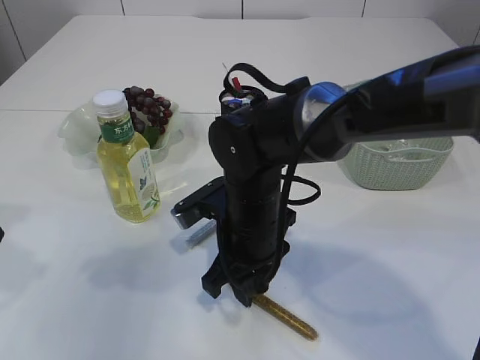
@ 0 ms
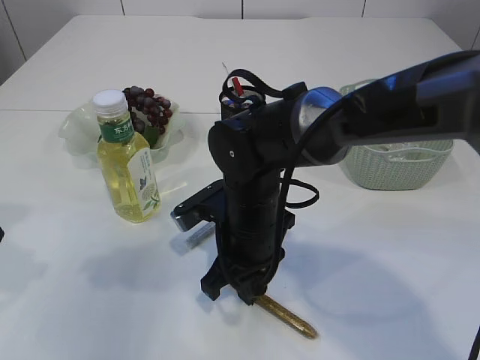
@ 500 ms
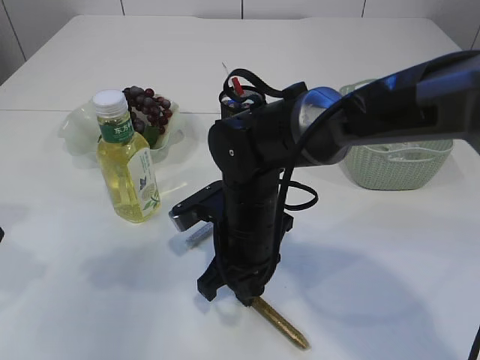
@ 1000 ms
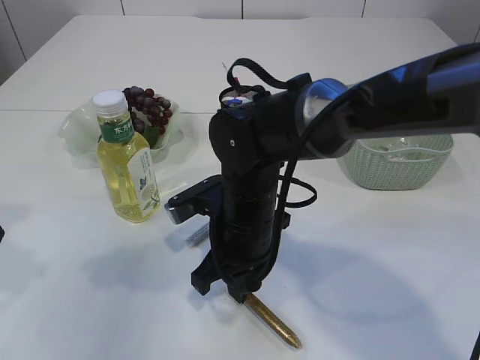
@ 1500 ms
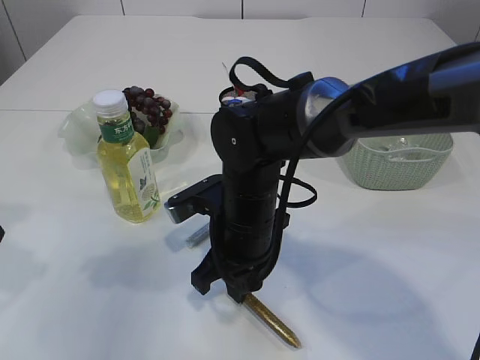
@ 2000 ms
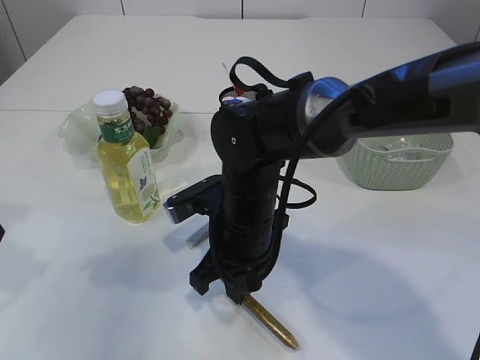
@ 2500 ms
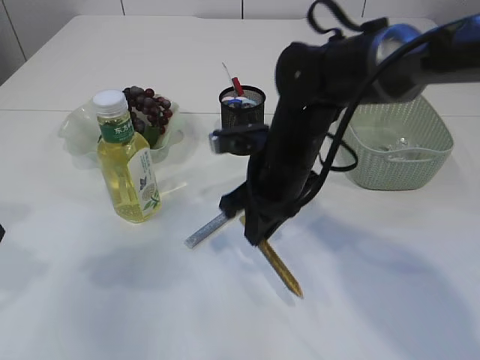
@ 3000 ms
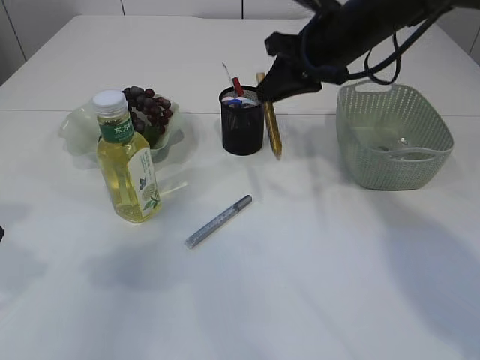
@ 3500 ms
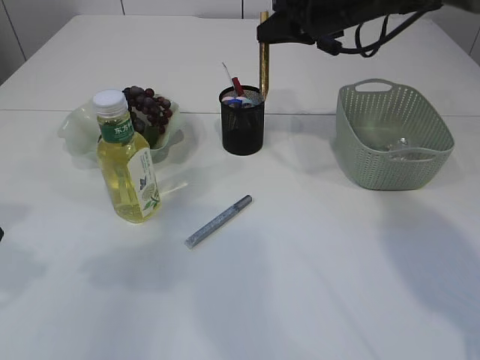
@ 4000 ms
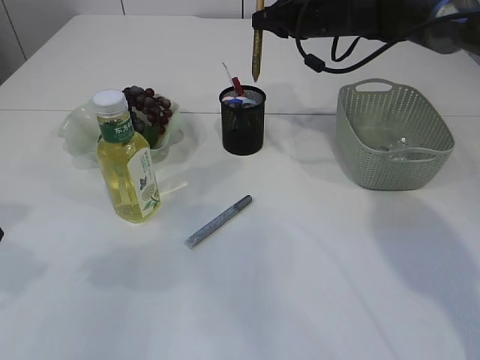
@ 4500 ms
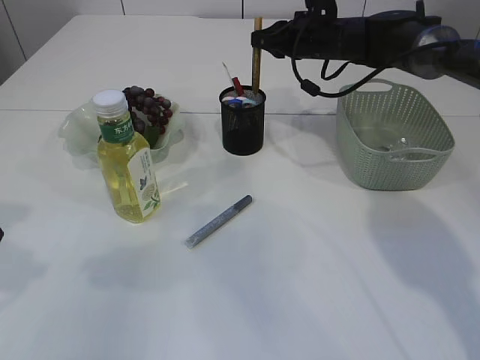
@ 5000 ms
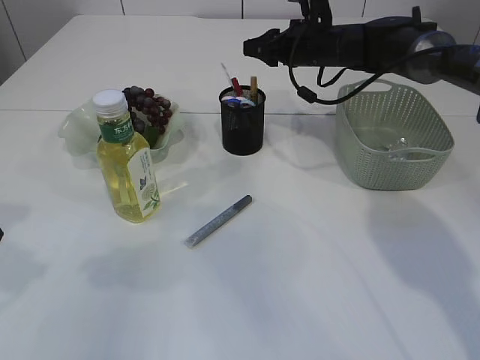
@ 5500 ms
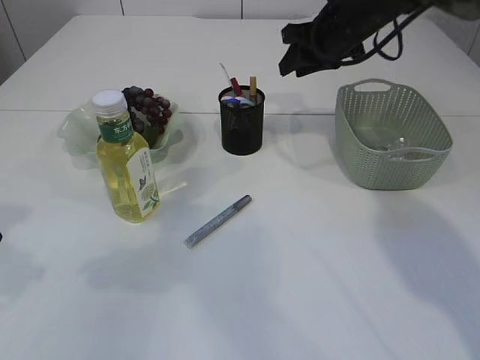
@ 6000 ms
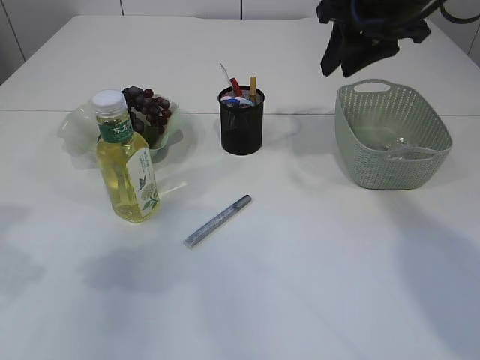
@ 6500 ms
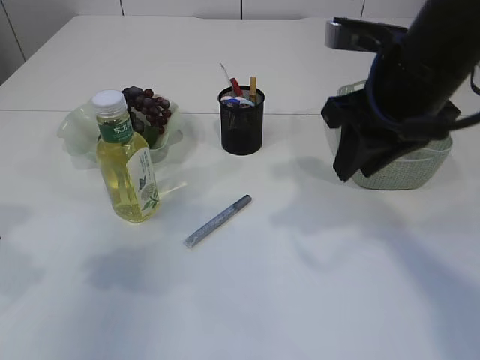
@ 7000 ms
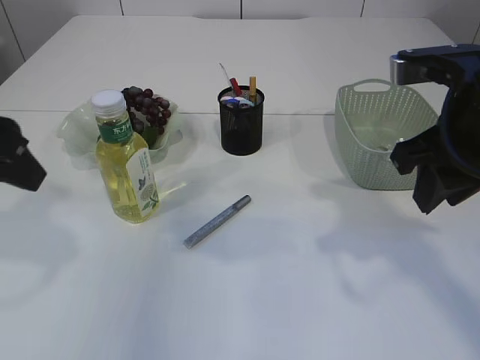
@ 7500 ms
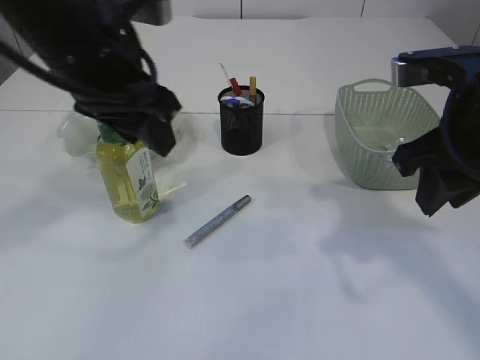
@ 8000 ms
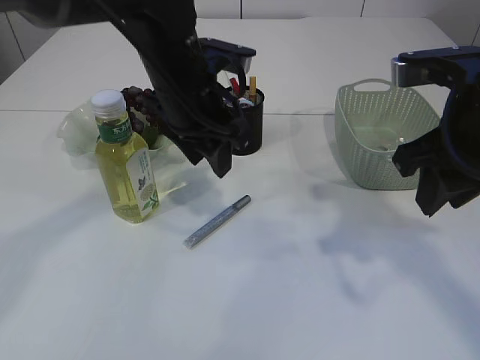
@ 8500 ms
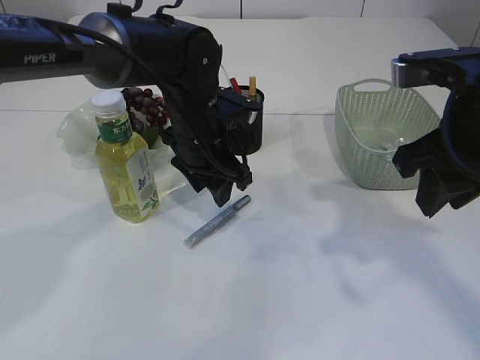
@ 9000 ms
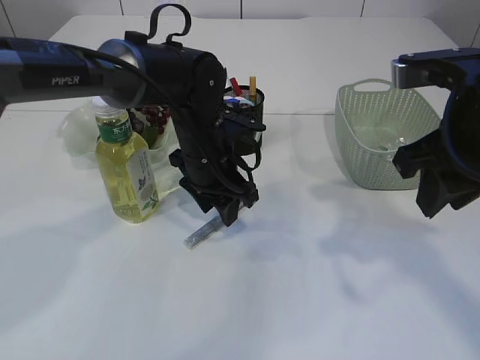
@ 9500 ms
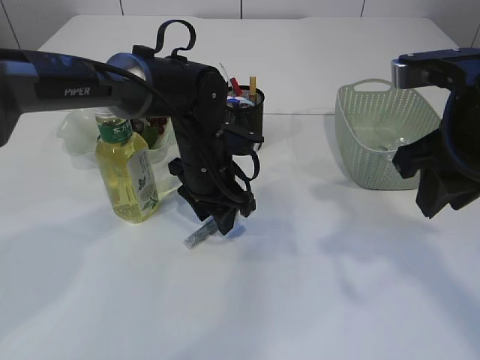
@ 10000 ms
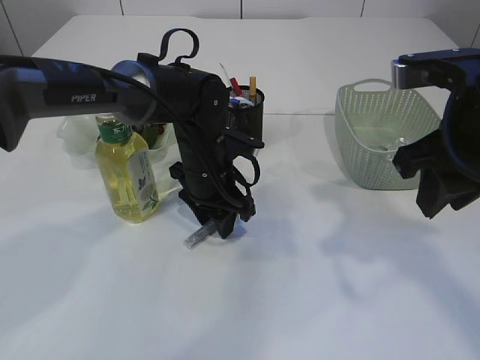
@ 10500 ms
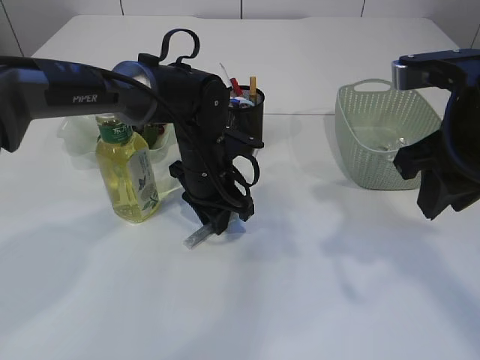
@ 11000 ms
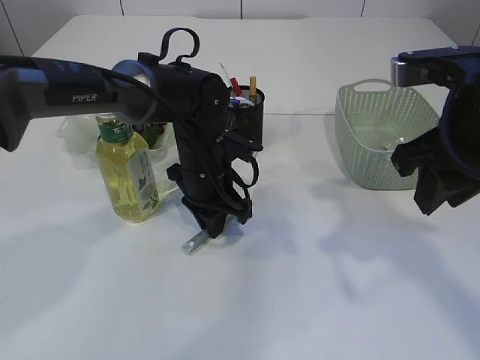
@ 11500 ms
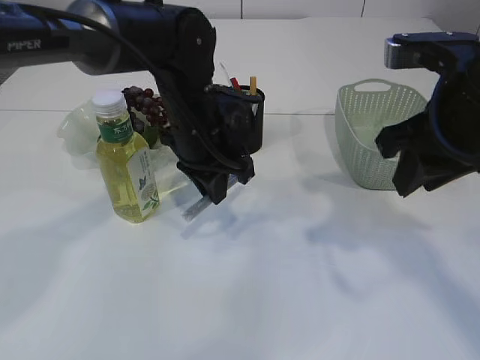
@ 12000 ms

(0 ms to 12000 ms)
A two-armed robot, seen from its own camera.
Step, 0 ms - 2500 ms: pick up the yellow glue.
Step, 3000 ms - 5500 ms: place the yellow glue into the pen holder.
0 ms - 2000 ms: The right gripper closes up.
2000 ms - 4000 ms: The right gripper moves forward, upward and to the right, some 30 cm.
4000 ms - 6000 ms: The right gripper opens its fingers.
6000 ms - 8000 ms: The right gripper heads backward, covering some 25 cm, while the left gripper shifts about 15 cm to the right and forward.
8000 ms - 10000 ms: The left gripper heads downward, forward and to the right, covering roughly 20 cm.
10000 ms - 12000 ms: The left gripper is displaced upward by approximately 5 cm, and closes.

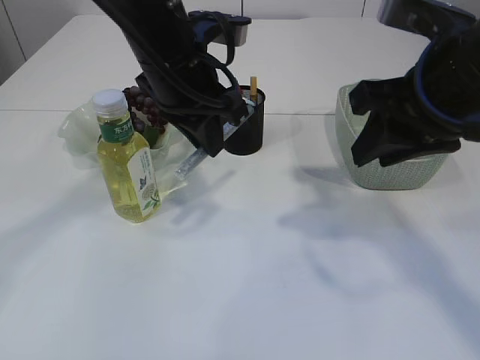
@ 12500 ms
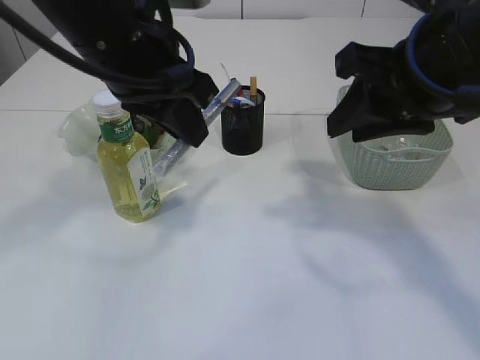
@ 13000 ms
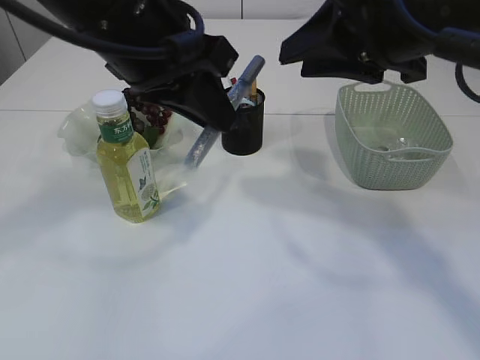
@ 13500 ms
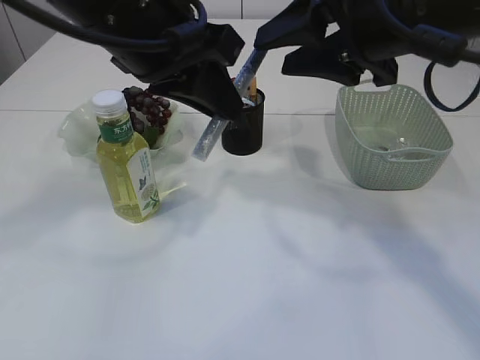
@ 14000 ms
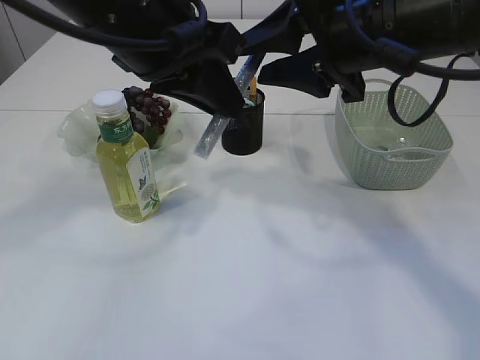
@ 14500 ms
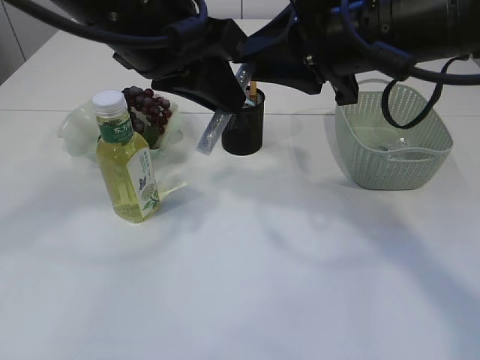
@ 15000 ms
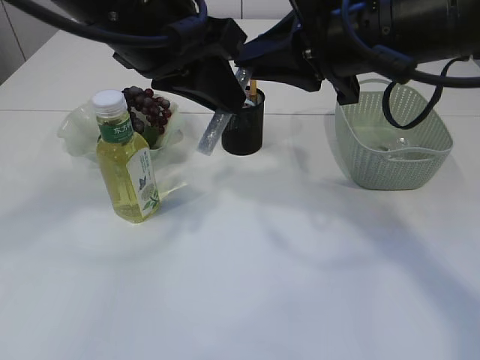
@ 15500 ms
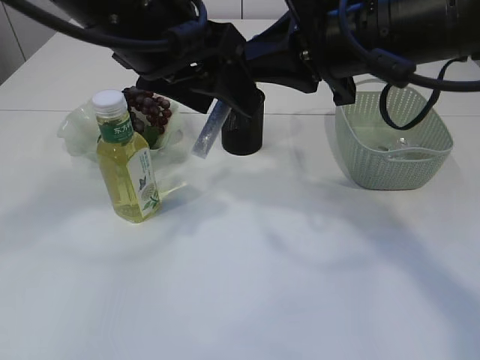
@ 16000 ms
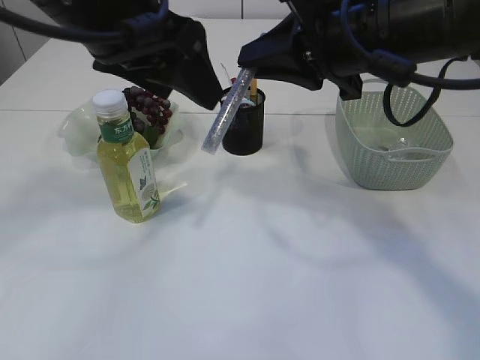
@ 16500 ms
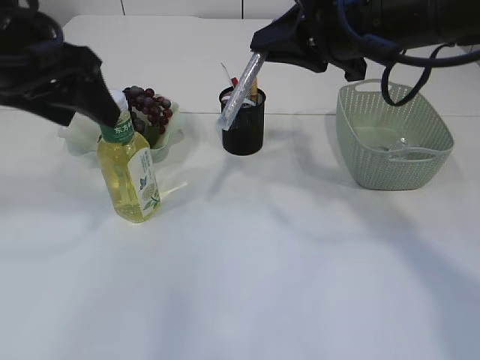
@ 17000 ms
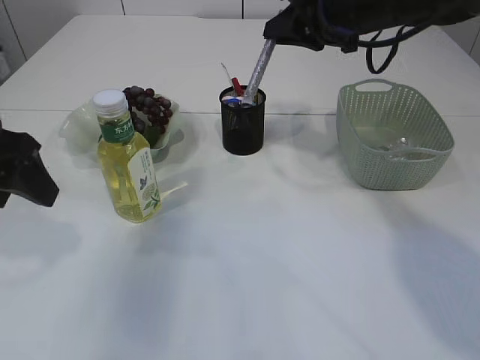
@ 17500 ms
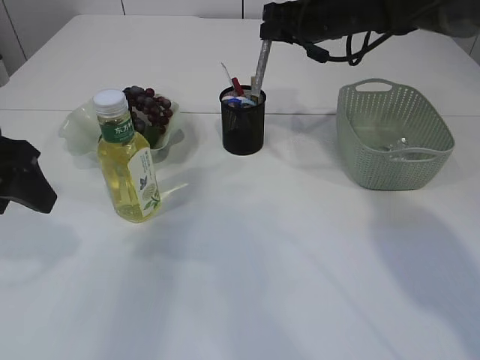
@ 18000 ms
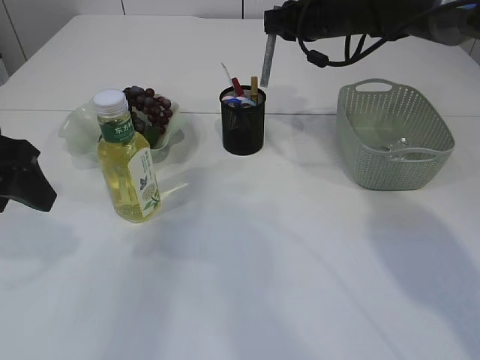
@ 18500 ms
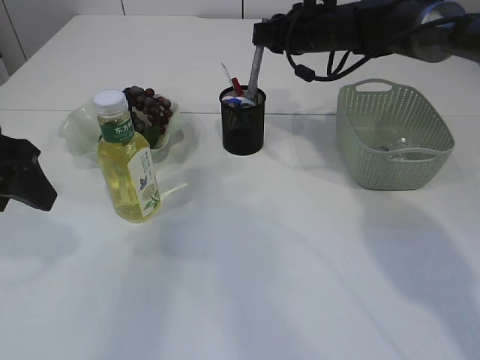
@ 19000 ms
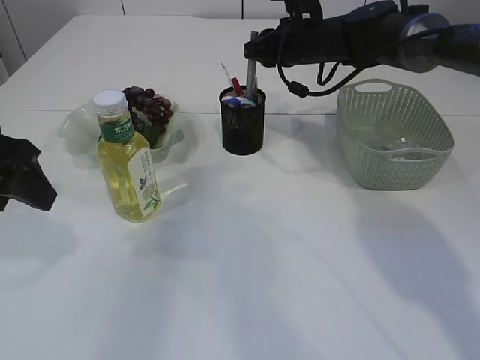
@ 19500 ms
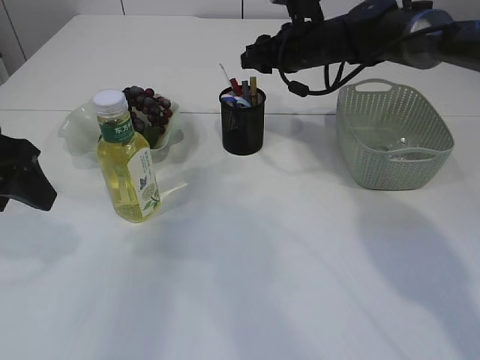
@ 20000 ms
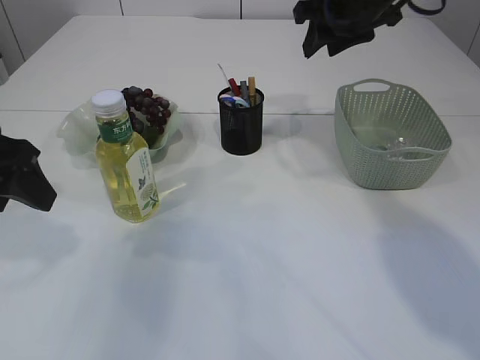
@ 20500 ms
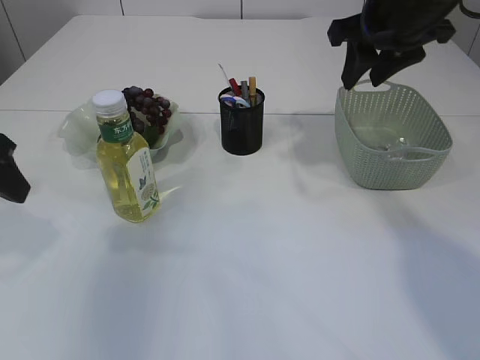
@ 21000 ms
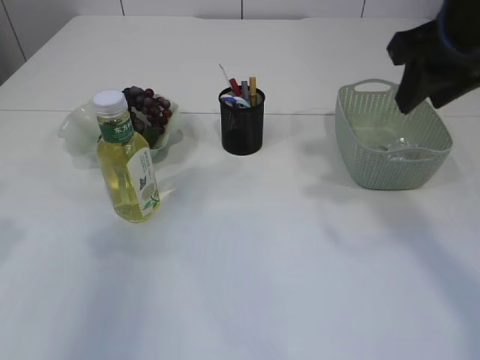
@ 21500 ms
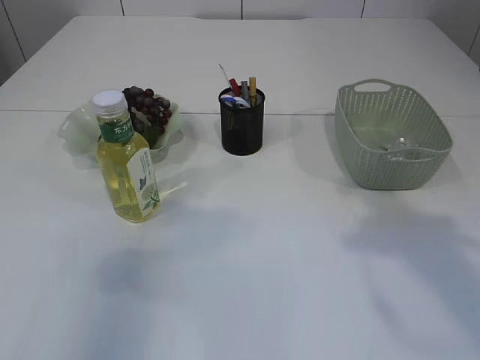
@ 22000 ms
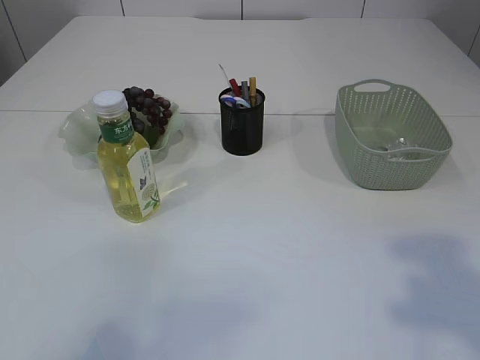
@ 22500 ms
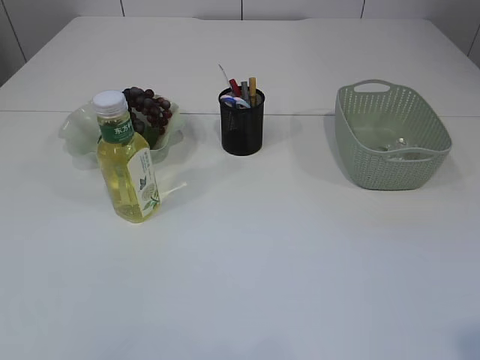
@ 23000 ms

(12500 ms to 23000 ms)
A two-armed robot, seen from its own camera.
Step, 12500 ms - 16500 ms: Hand over the silver glue.
Step, 17000 ms - 20500 ms: place the silver glue into the pen holder.
12500 ms - 14500 ms: The right gripper travels to the left by approximately 5 cm; the left gripper travels backward and upward by about 10 cm.
14500 ms - 16500 ms: The left gripper opens its fingers. Meanwhile the right gripper closes its fingers.
16500 ms - 19000 ms: The left gripper travels to the left and downward by approximately 15 cm. Meanwhile the right gripper shifts approximately 25 cm forward.
19000 ms - 21000 ms: The right gripper heads backward and upward, covering approximately 15 cm, and opens up.
21000 ms - 23000 ms: Both grippers move backward, some 35 cm.

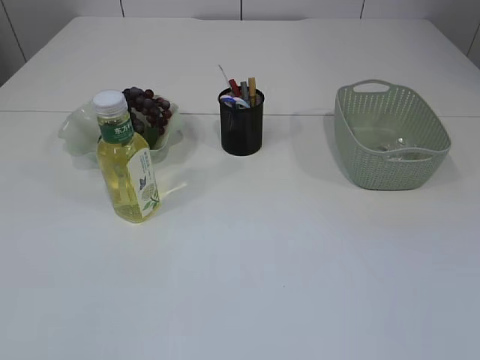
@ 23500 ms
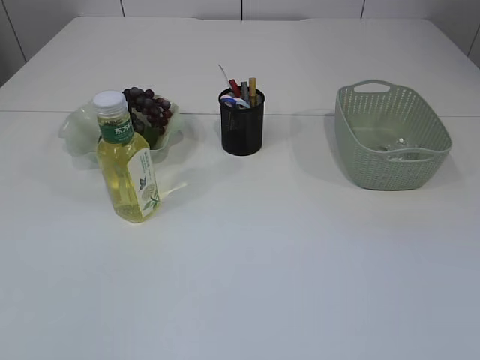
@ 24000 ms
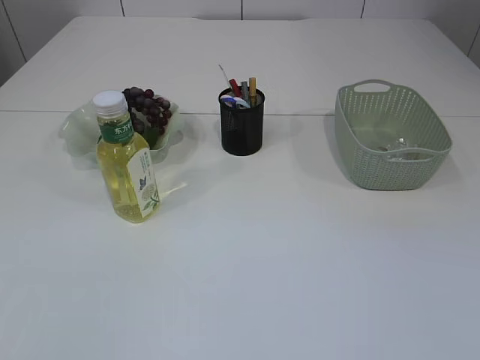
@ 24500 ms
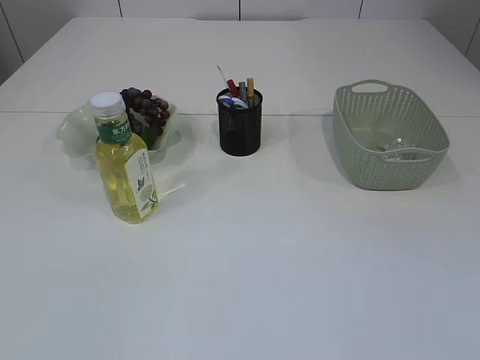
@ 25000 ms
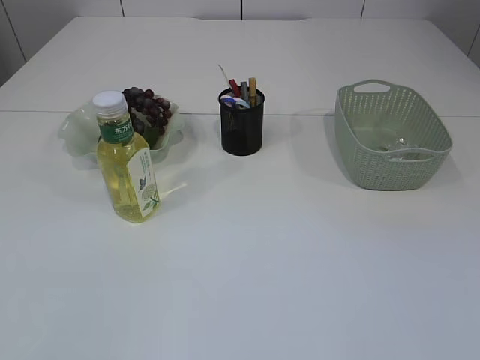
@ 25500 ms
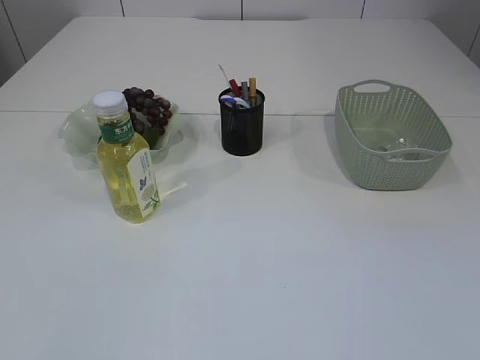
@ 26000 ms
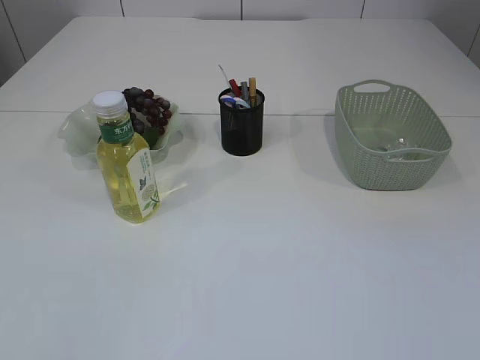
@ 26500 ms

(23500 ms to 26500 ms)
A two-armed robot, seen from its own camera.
23500 ms - 25000 ms: There are only small adjustments of the grippers.
25000 ms - 26500 ms: Neither gripper changes place.
